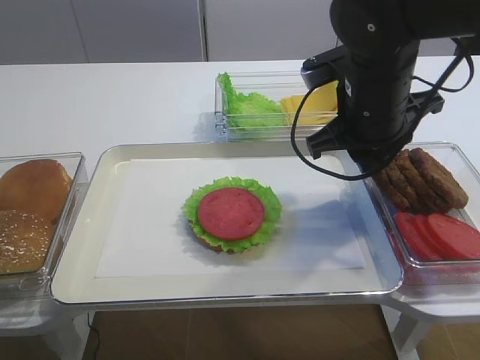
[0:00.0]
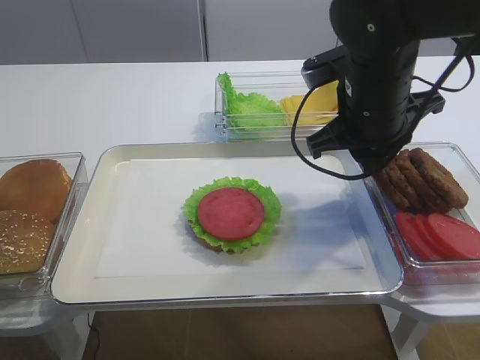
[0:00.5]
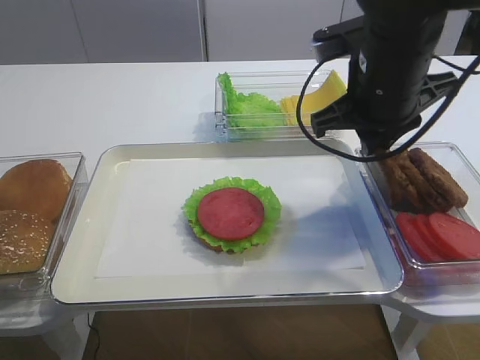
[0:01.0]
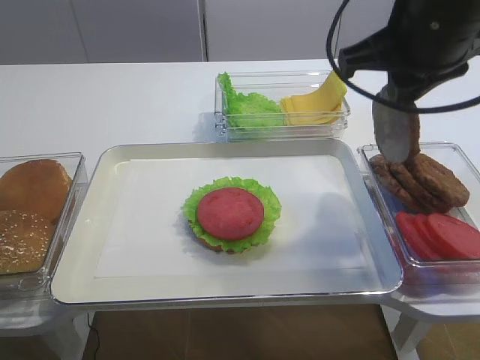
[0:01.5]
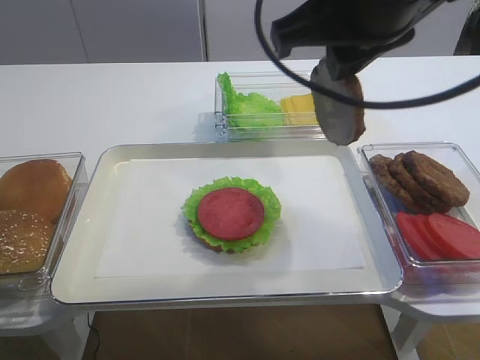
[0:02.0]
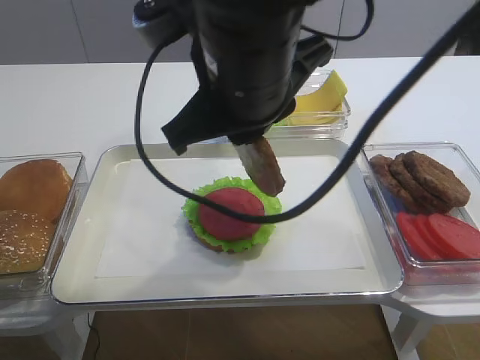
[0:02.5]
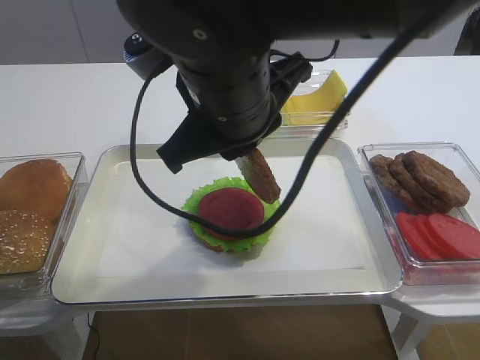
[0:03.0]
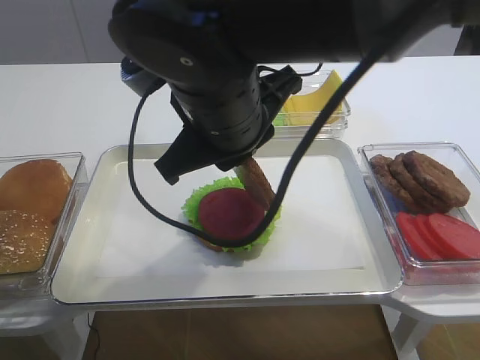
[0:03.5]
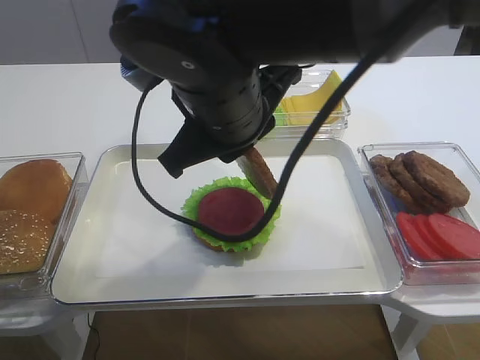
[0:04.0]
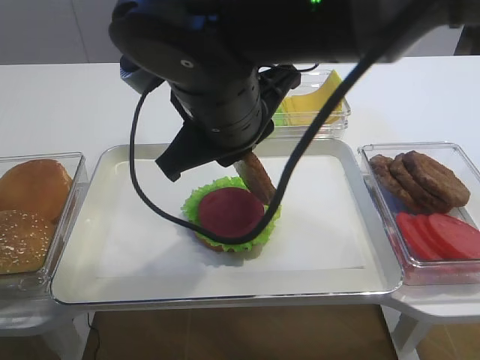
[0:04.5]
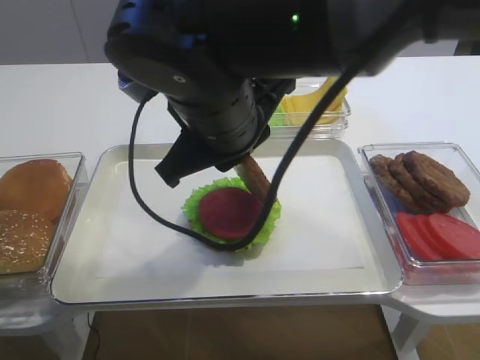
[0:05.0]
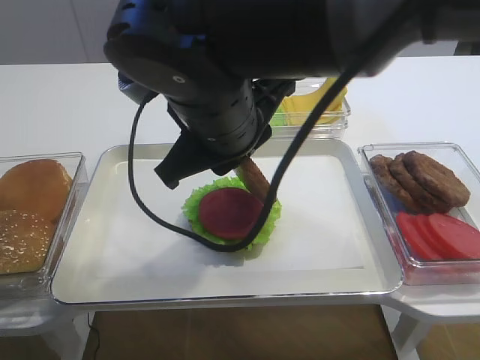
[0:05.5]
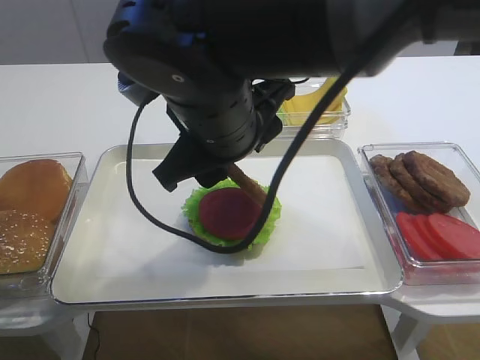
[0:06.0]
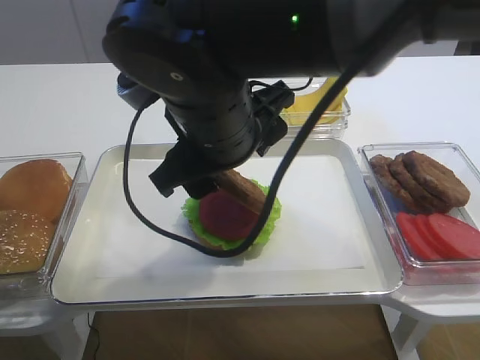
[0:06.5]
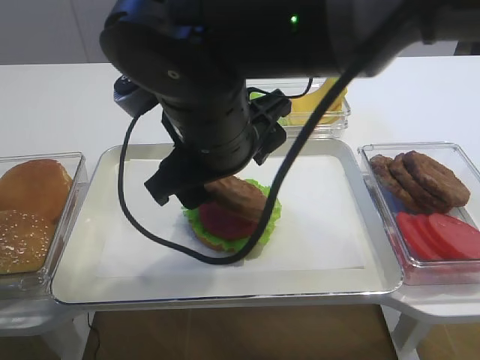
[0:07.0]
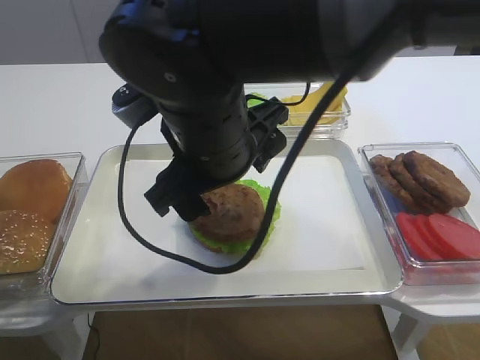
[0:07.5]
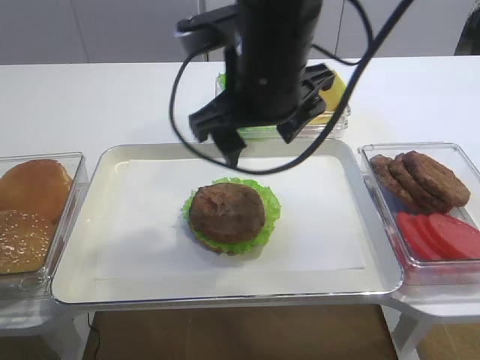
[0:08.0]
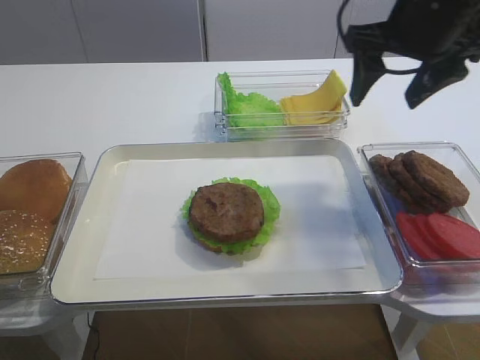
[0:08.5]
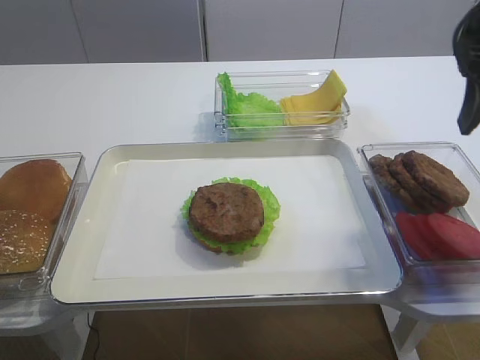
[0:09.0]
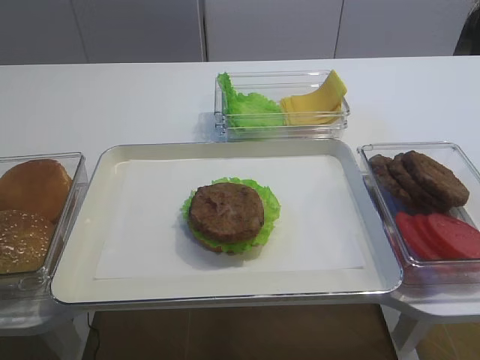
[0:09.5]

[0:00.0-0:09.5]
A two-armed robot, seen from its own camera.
Step, 0:01.5 to 0:07.5: Place the cutlet on the tomato slice with the right gripper.
0:00.0 to 0:02.0: The right gripper moves upward and backward, some 15 cm.
0:02.0 to 0:04.0: The right gripper goes about 15 cm to the left and downward.
0:04.0 to 0:05.5: Both grippers stay put.
0:05.5 to 0:07.5: The right gripper opens its fingers.
0:07.5 to 0:09.5: The right gripper goes approximately 30 cm to the right.

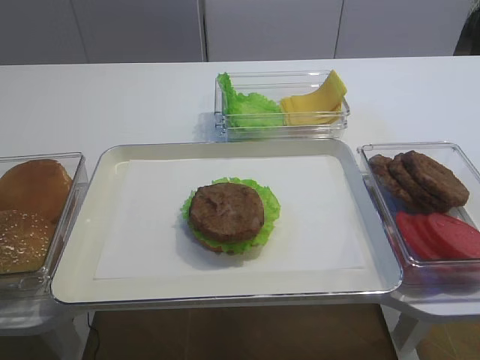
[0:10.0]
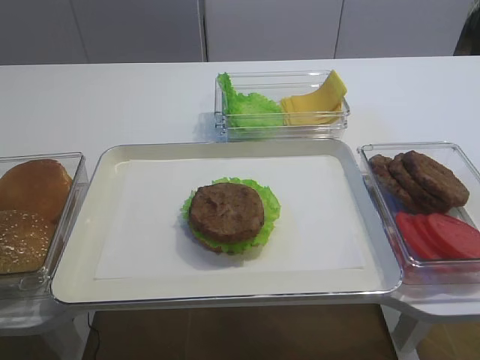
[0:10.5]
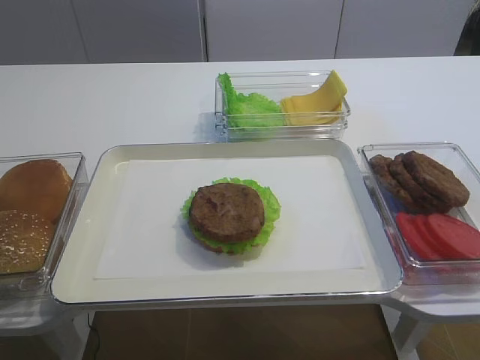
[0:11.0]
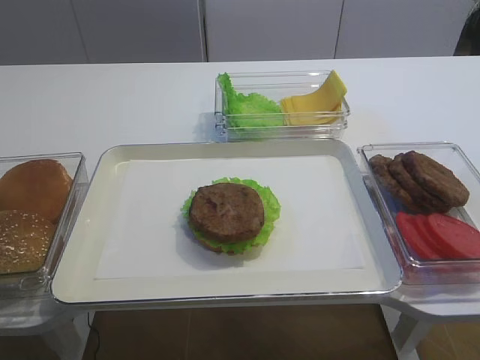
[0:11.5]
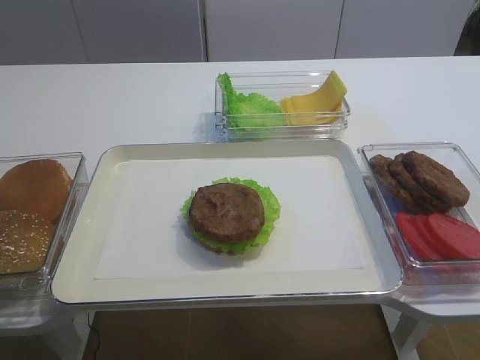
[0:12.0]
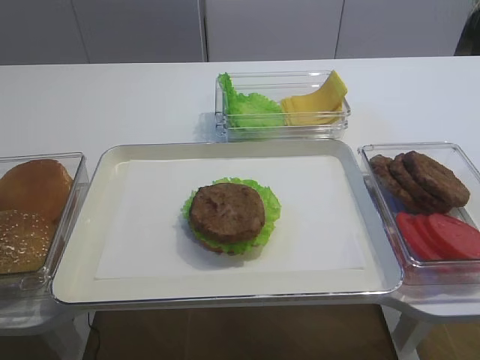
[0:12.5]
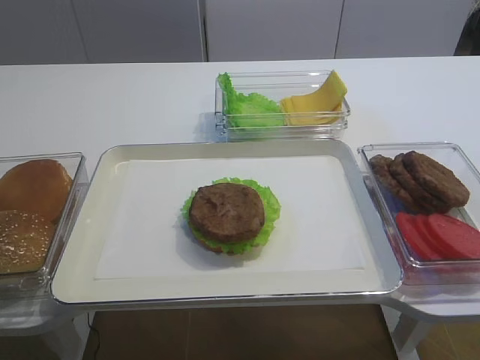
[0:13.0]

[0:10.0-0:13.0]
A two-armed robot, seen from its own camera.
0:10.0 to 0:11.5: The right gripper goes approximately 10 cm backward and downward.
0:11.5 to 0:13.0: Both grippers stay about where they are.

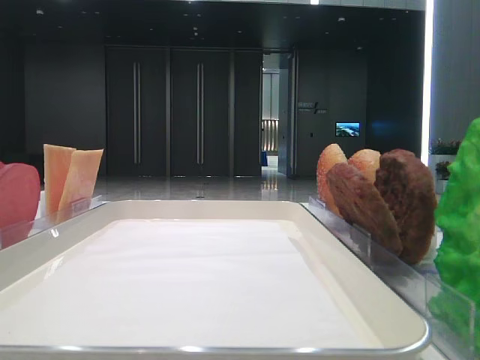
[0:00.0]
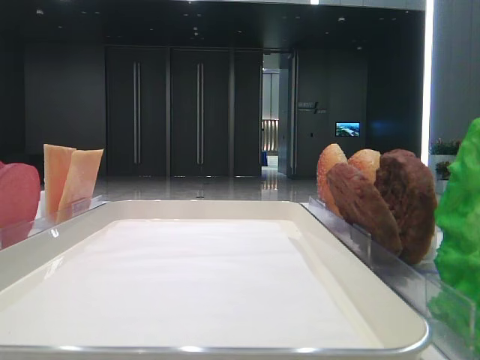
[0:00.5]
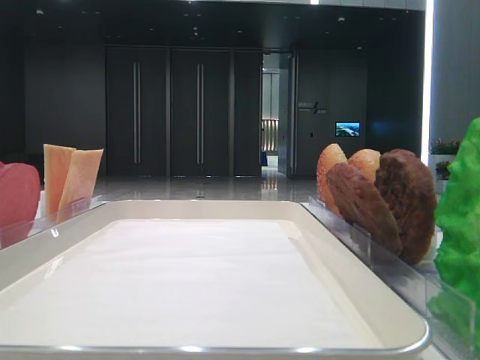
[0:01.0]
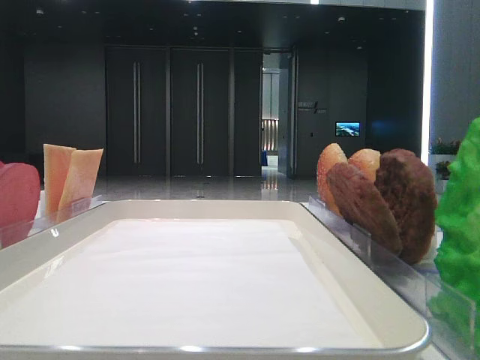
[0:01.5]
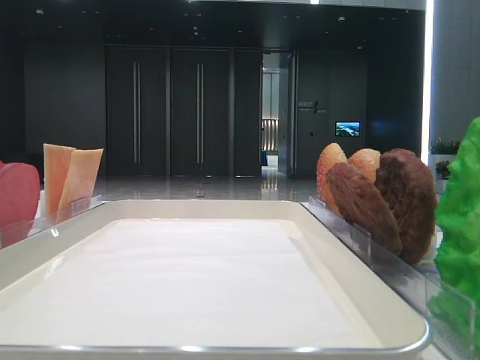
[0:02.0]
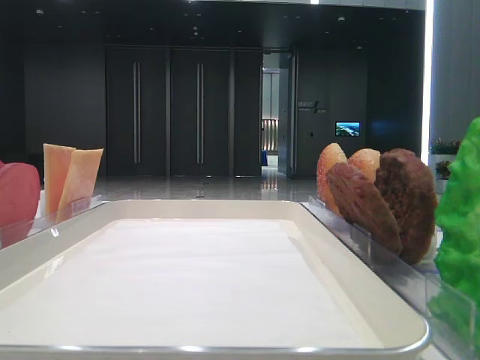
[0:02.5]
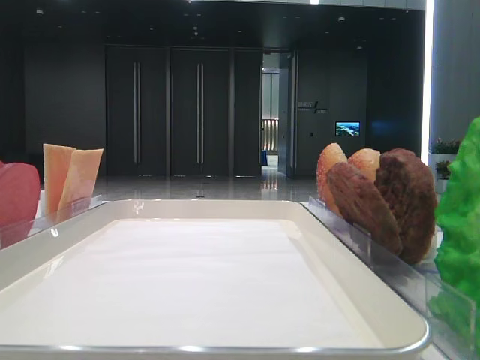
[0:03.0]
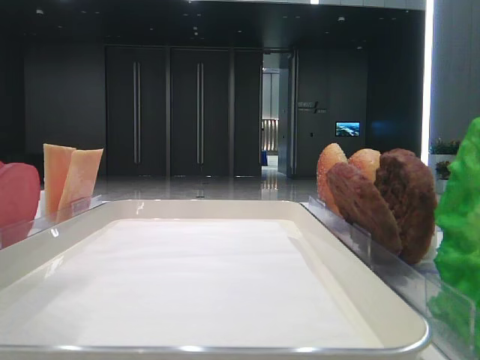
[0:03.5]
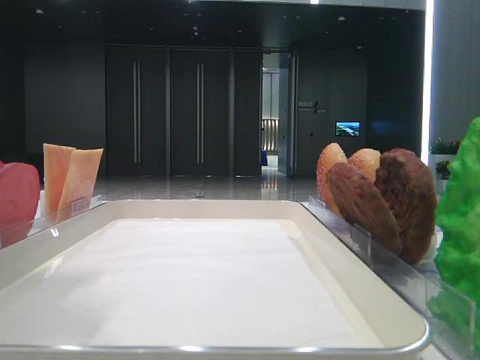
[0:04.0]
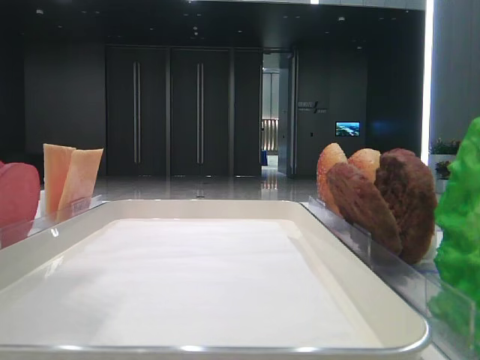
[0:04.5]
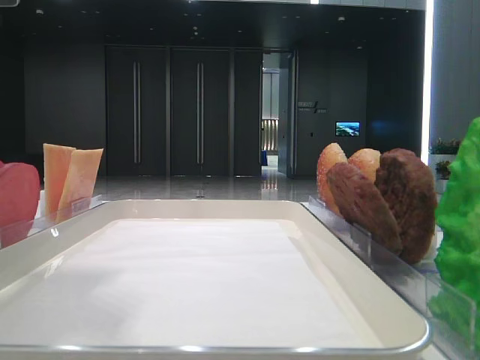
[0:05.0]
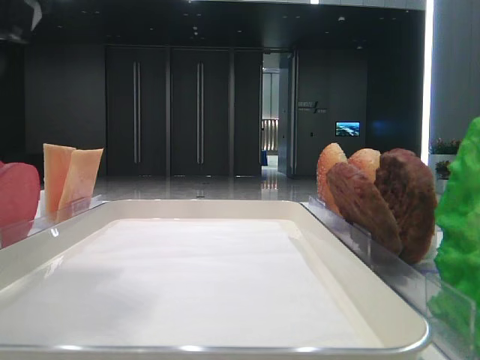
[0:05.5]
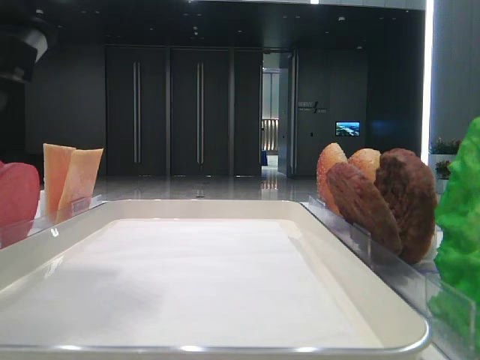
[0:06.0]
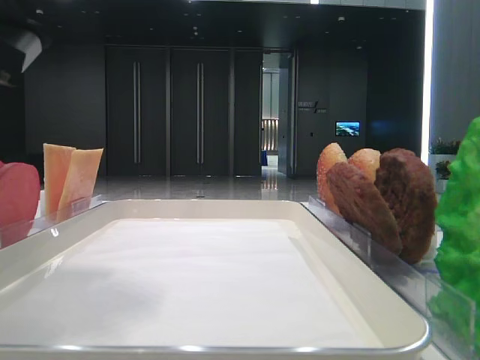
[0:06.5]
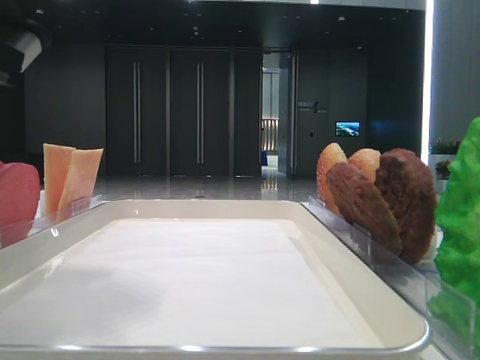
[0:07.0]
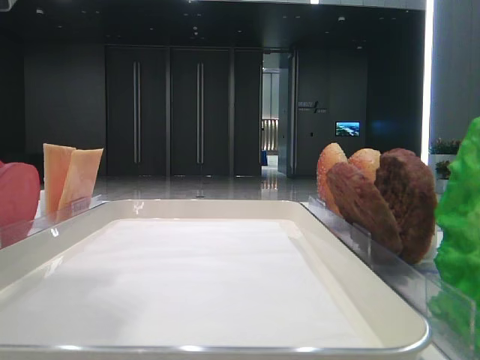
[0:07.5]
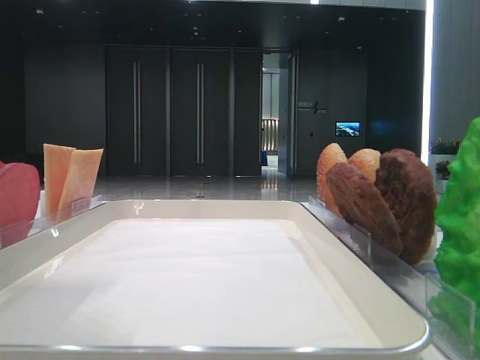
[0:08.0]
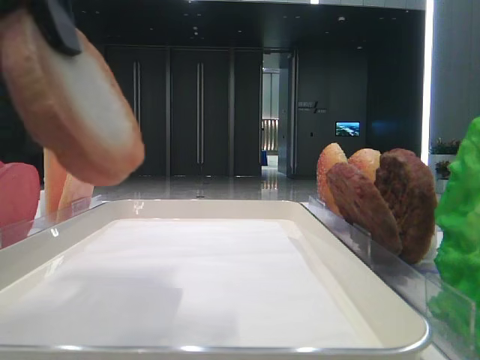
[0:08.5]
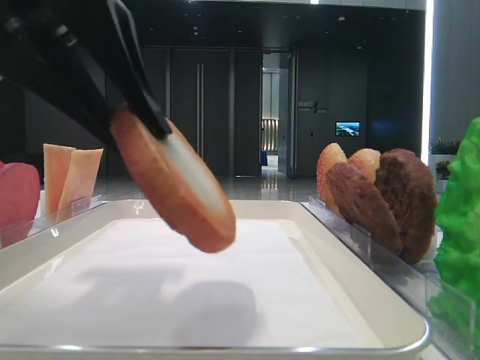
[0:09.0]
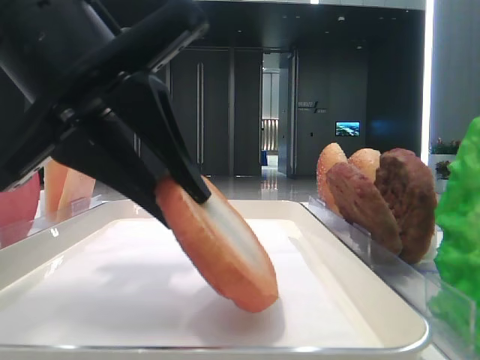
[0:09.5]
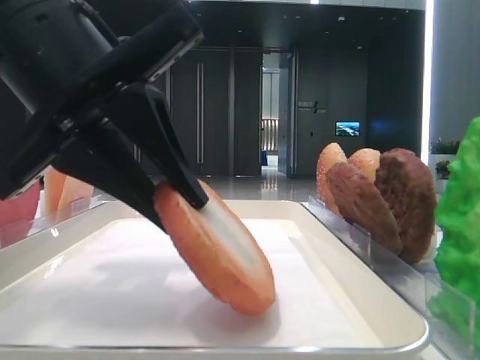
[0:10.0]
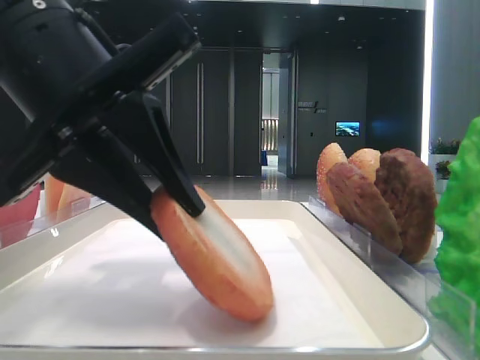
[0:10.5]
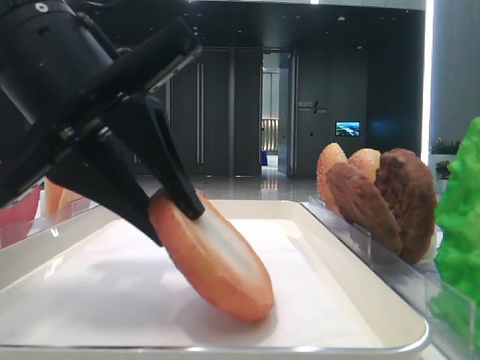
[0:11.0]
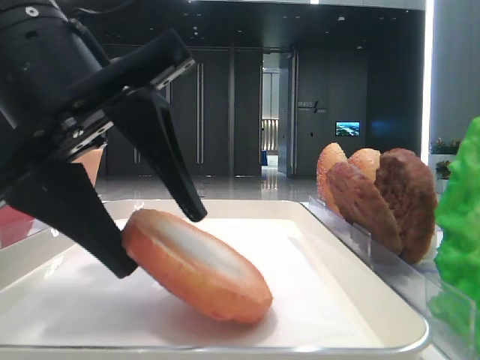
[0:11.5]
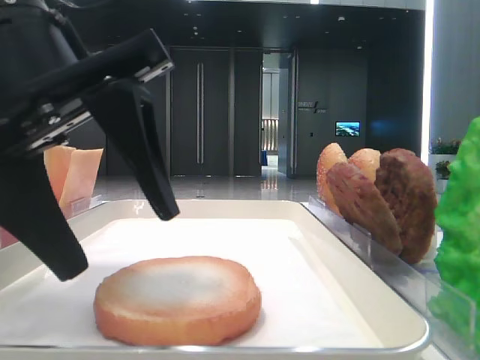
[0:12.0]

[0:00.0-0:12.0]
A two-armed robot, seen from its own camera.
Step, 0:00.0 to 0:07.5: Pick up the bottom bread with the left hand.
Step, 0:08.0 to 0:11.5: Place the bread on the tray with the left hand.
0:02.0 to 0:04.0: The left gripper goes some 15 cm to the right and downward.
0:04.0 to 0:06.0: The left gripper changes place by about 5 cm.
0:06.0 to 0:08.0: The left gripper shifts about 5 cm upward, and closes its fingers.
0:08.0 to 0:10.0: The left gripper shifts about 10 cm downward and to the right.
0:10.0 to 0:12.0: The left gripper opens.

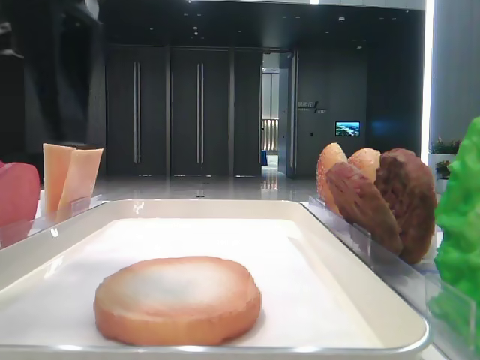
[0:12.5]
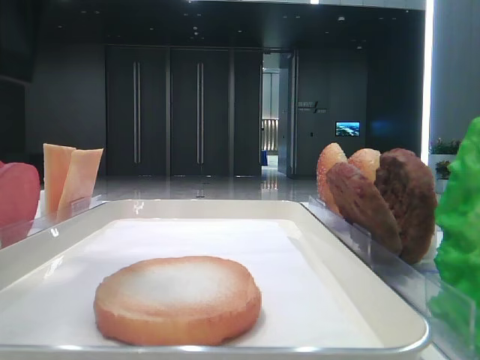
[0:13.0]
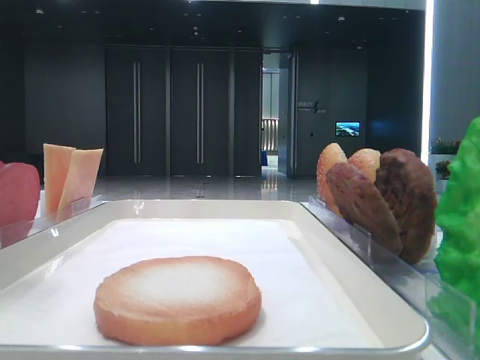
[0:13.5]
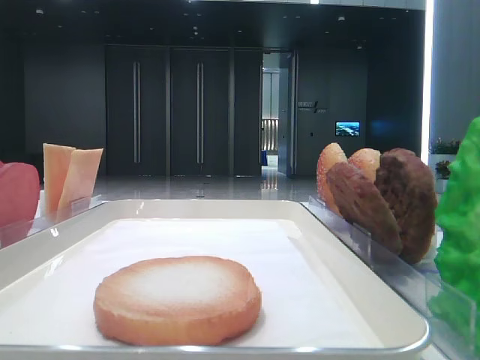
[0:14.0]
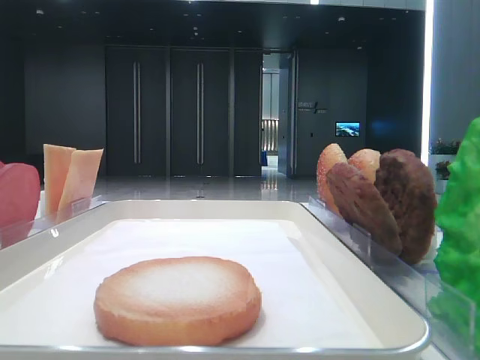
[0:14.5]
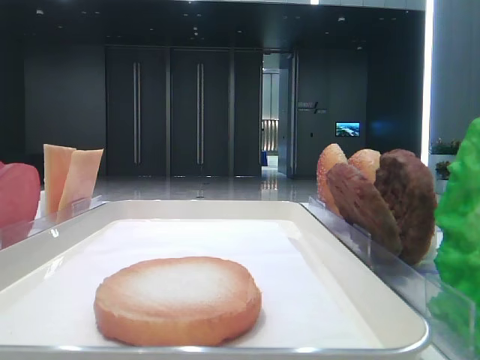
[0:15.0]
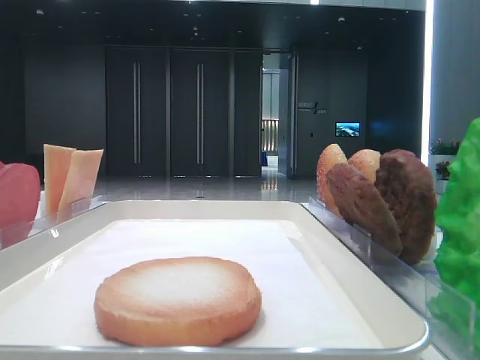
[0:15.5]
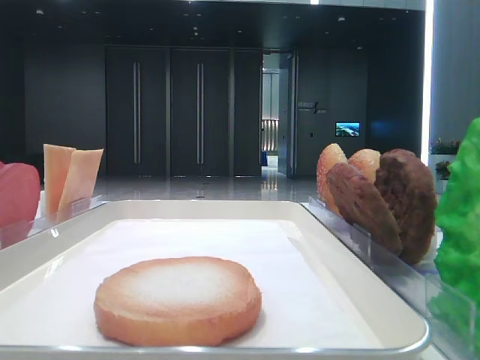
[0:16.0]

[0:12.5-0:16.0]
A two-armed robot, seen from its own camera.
0:12.5 to 0:14.5: The left gripper travels to the left, backward and upward by roughly 25 cm.
